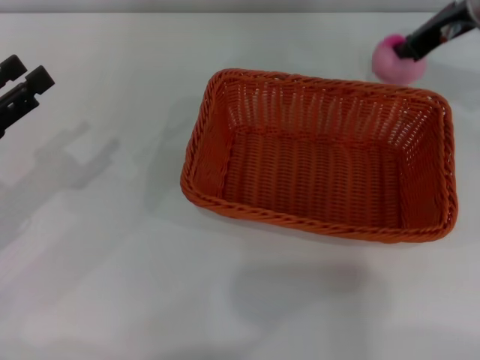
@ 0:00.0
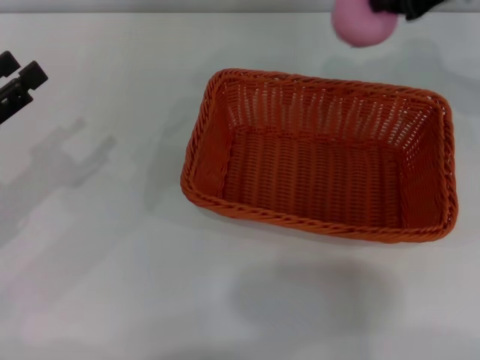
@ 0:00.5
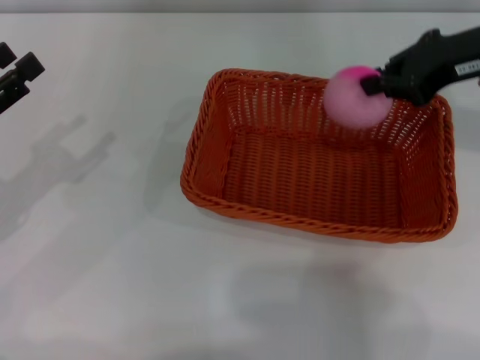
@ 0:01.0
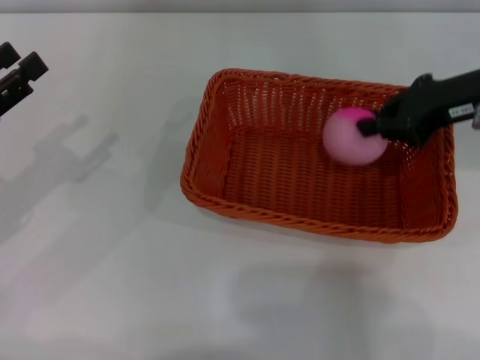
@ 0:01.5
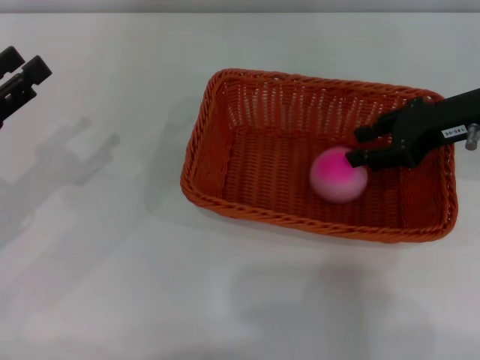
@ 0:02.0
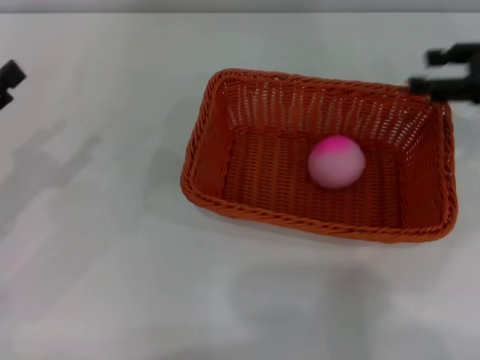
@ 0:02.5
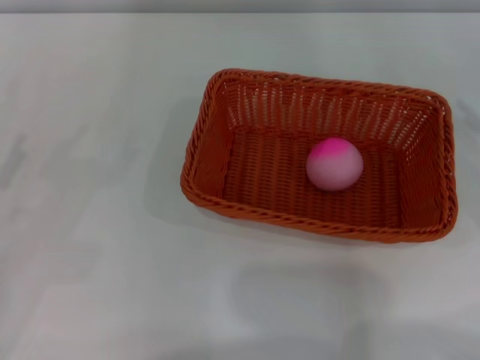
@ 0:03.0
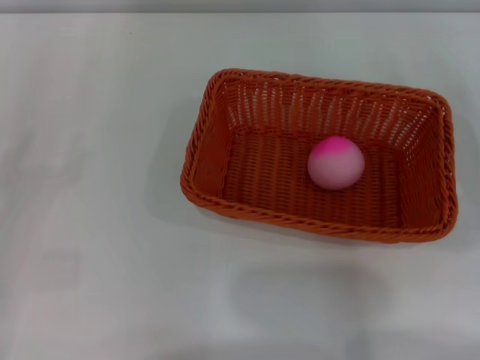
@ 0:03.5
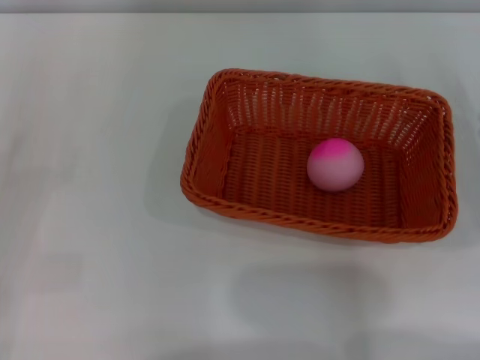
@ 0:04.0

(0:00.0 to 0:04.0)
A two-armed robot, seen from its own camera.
0:00.0 - 0:02.0: The right gripper shifts approximately 10 cm backward.
0:02.0 - 0:04.0: The left gripper shifts about 5 cm downward, while the right gripper goes about 20 cm backward, downward and to the right, and opens.
